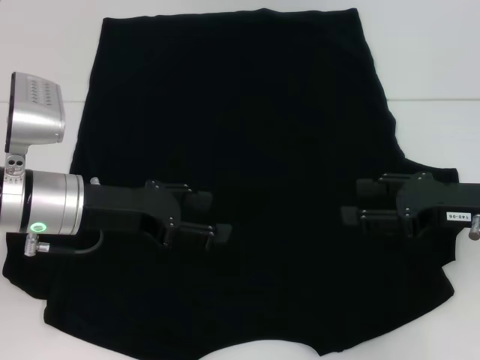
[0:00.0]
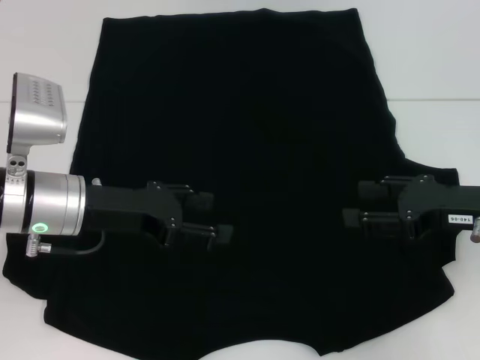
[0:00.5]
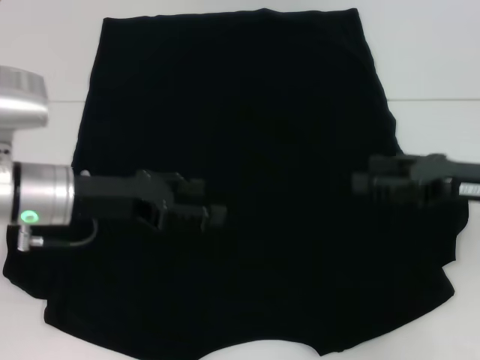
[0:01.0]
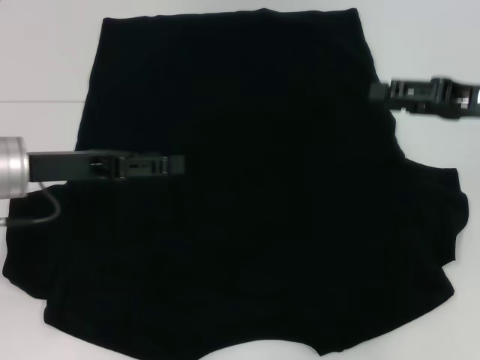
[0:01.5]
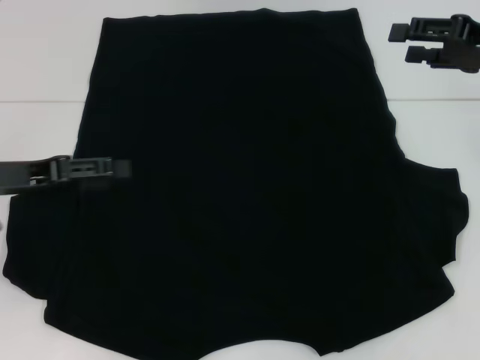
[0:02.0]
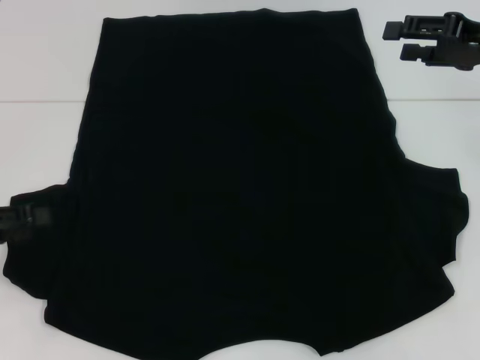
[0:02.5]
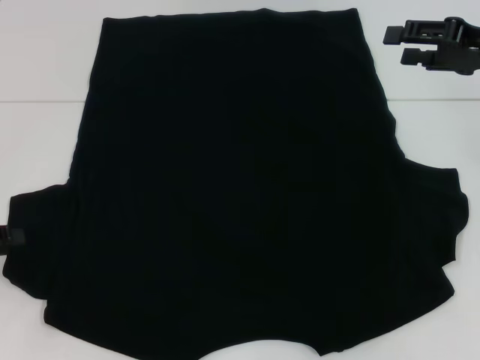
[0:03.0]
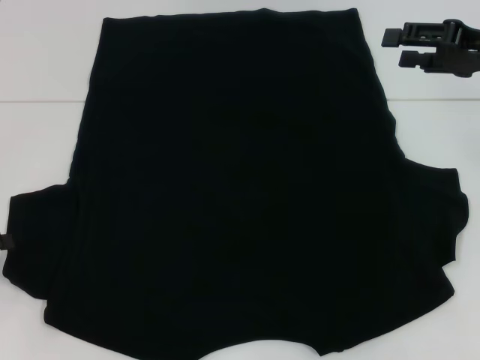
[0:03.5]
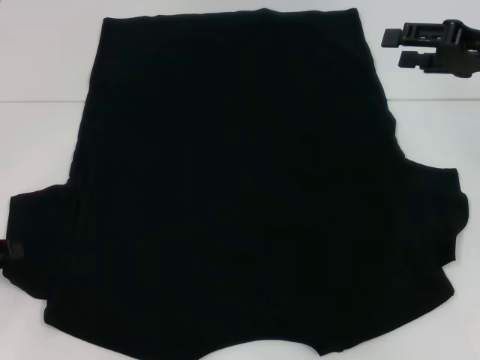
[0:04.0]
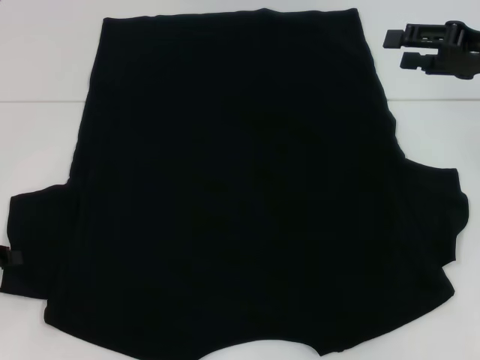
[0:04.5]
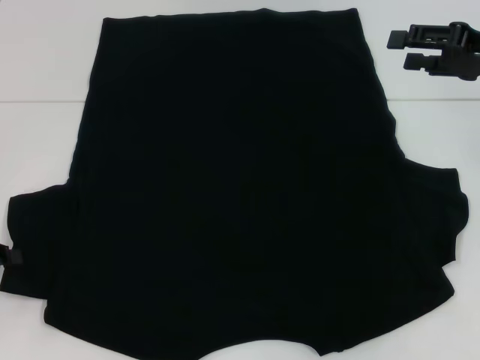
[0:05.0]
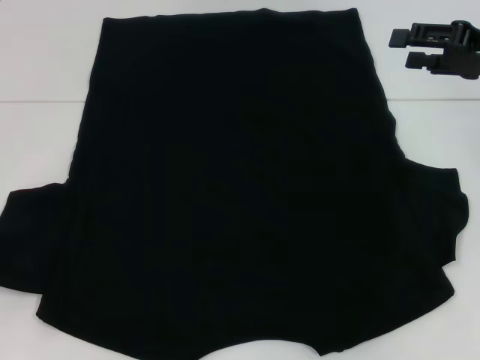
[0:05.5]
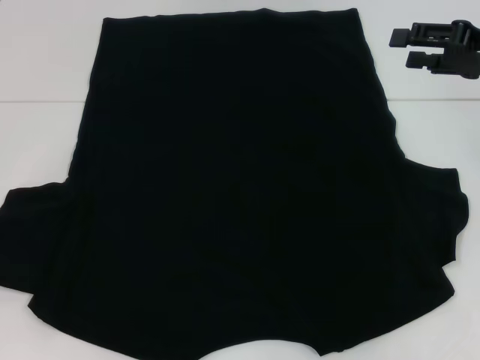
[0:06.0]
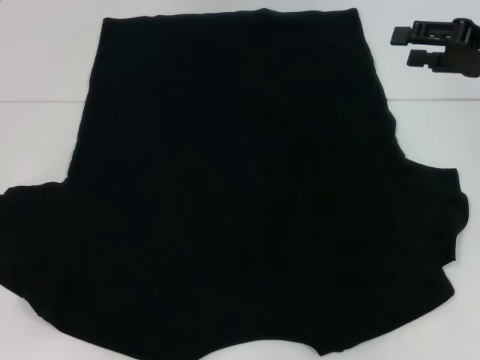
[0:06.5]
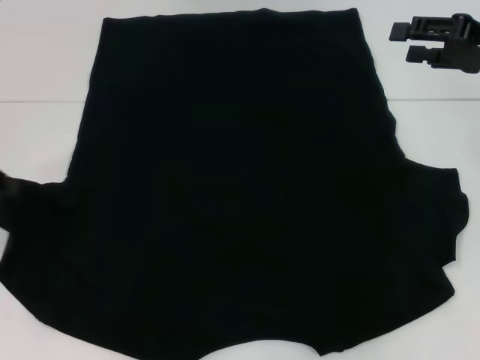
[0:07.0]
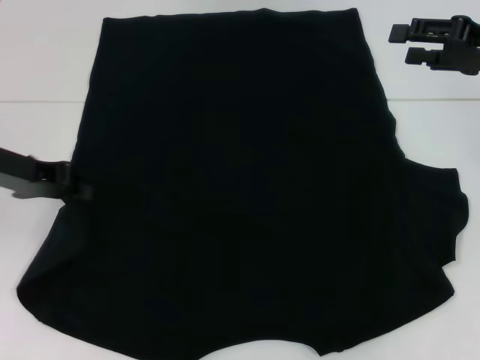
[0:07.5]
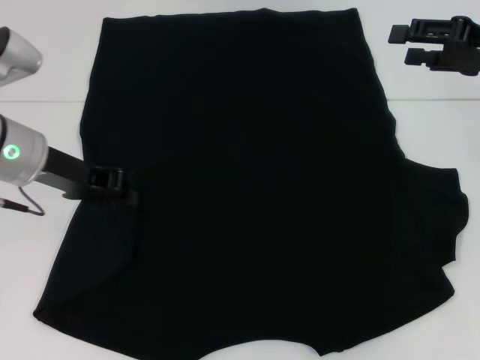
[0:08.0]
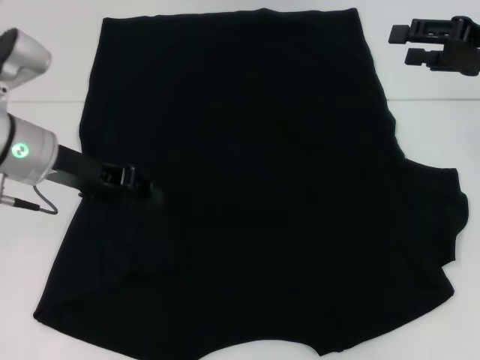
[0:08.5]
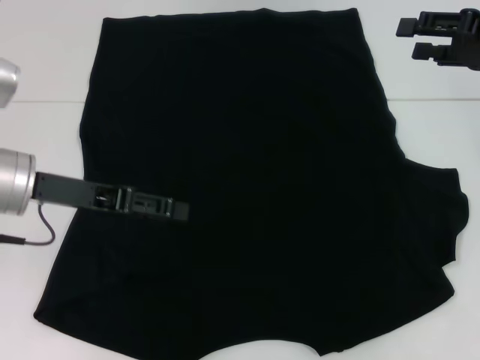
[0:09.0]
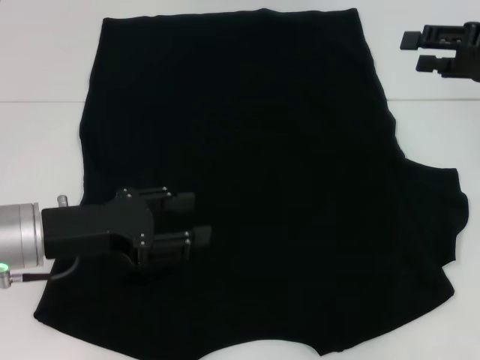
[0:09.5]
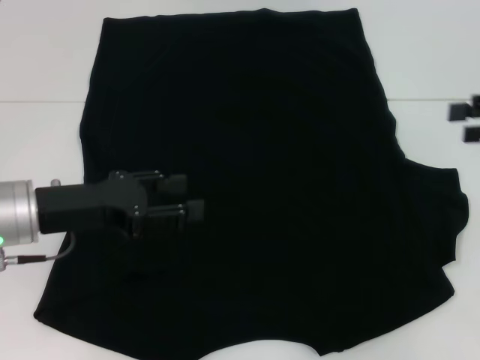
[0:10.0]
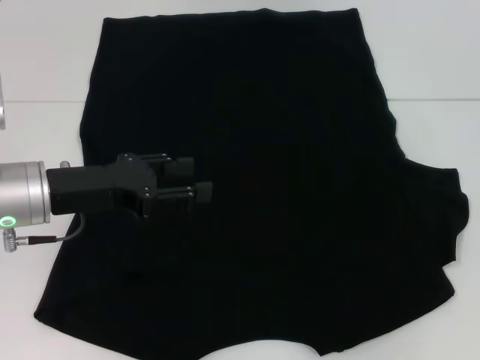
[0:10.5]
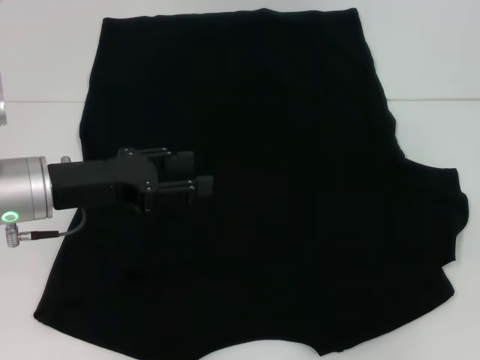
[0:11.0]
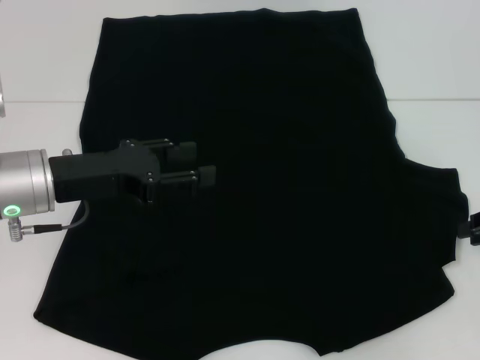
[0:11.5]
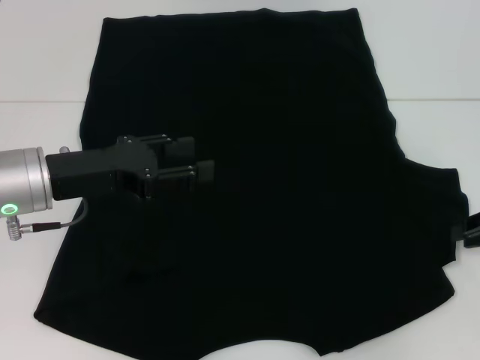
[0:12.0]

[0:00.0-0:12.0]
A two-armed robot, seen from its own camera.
Step, 0:00.0 to 0:08.0: Fold the bottom left sleeve with your left hand.
0:00.0 to 0:02.0: The right gripper travels upward and forward by approximately 15 cm, while the left gripper moves to the left, some 10 cm.
0:02.0 to 0:04.0: The left gripper shifts some 10 cm to the left and downward, and closes up.
0:04.0 to 0:06.0: The left gripper closes.
0:06.0 to 0:08.0: The left gripper travels to the right and forward by some 20 cm.
0:08.0 to 0:10.0: The left gripper goes roughly 5 cm backward, and opens its fingers; the right gripper travels to the right by approximately 5 cm.
0:10.0 to 0:12.0: The right gripper goes roughly 10 cm downward, and closes up.

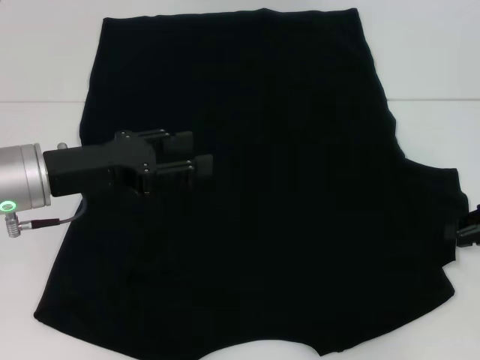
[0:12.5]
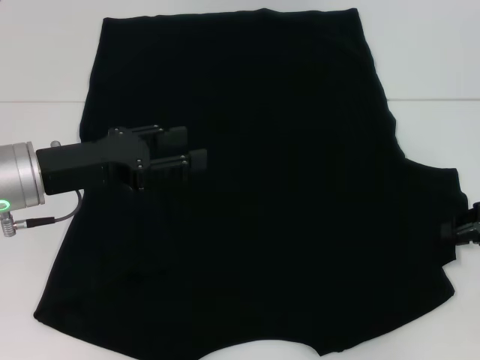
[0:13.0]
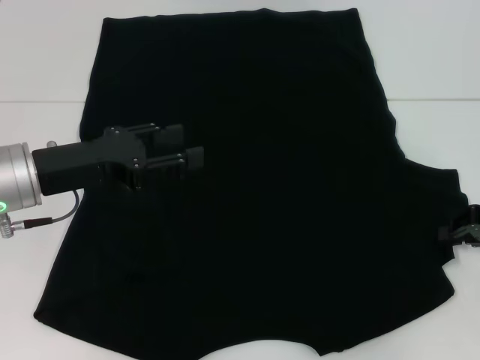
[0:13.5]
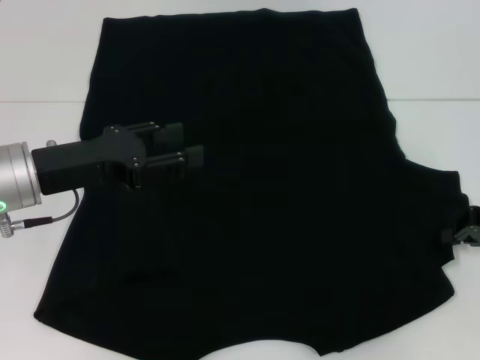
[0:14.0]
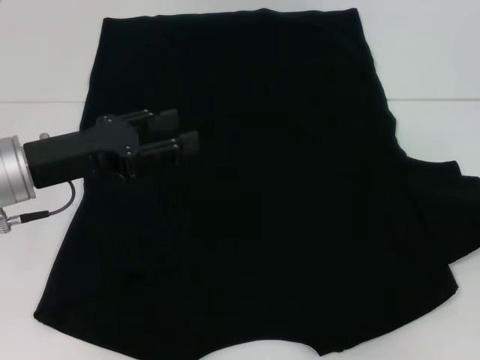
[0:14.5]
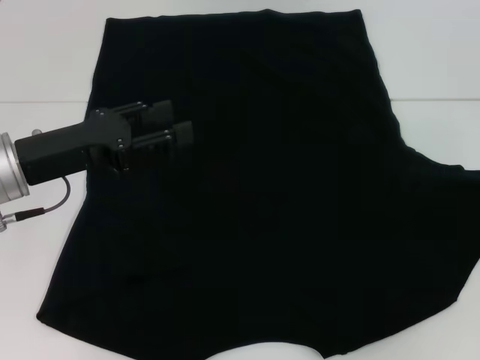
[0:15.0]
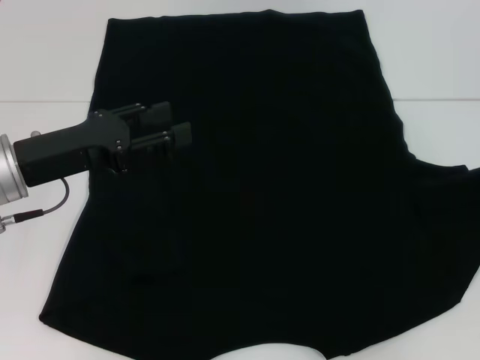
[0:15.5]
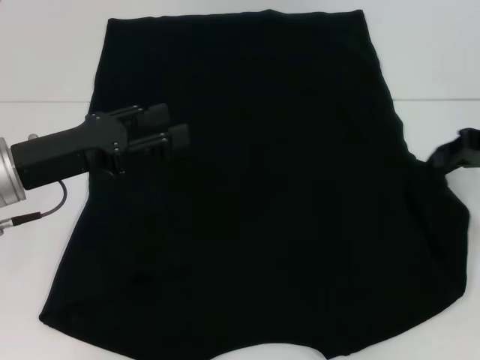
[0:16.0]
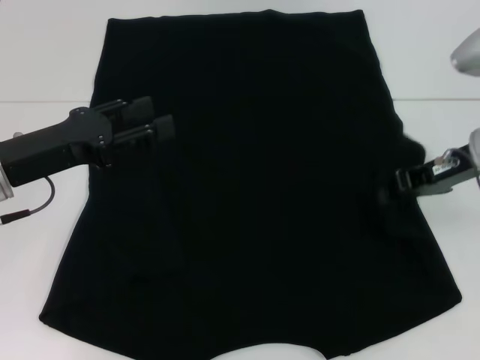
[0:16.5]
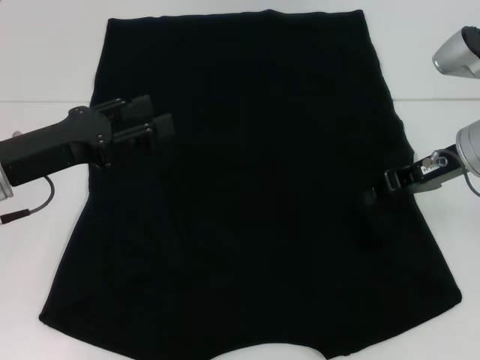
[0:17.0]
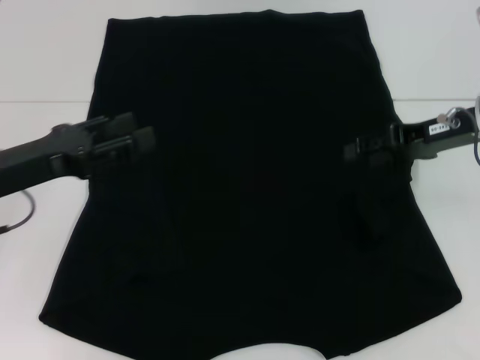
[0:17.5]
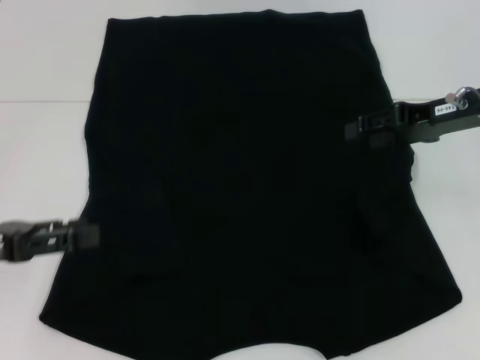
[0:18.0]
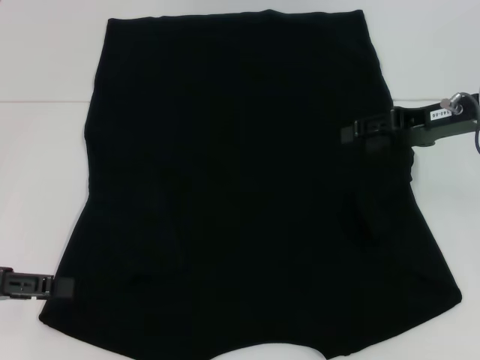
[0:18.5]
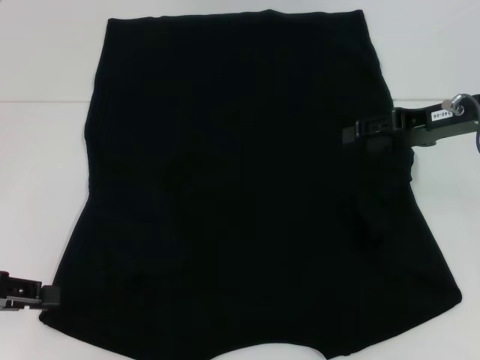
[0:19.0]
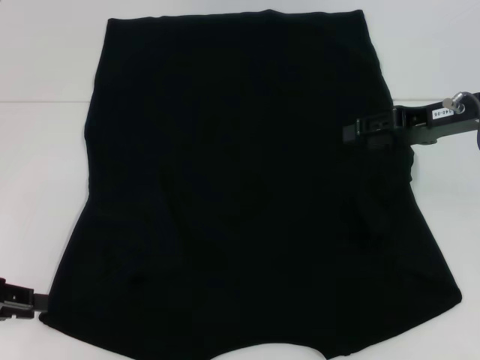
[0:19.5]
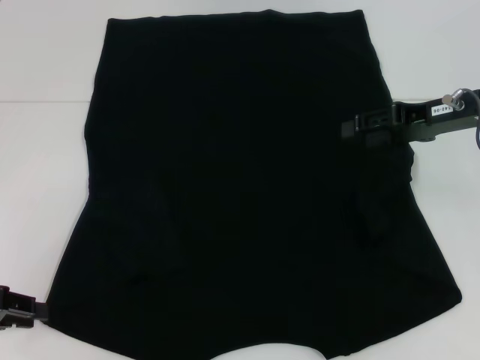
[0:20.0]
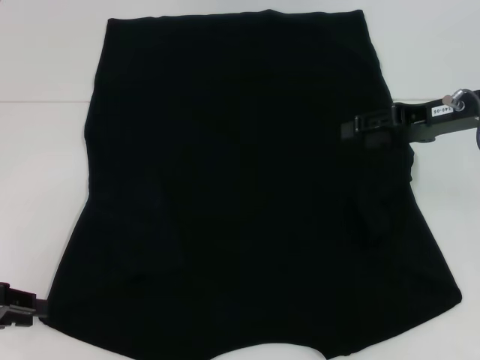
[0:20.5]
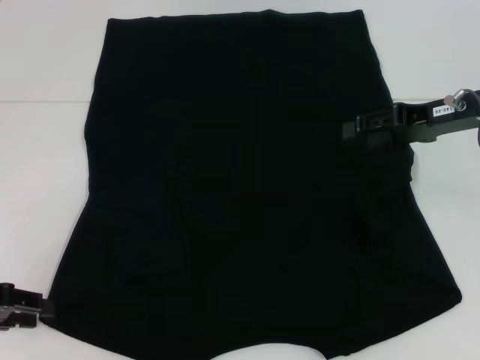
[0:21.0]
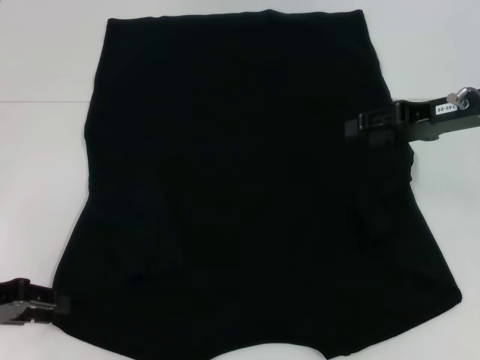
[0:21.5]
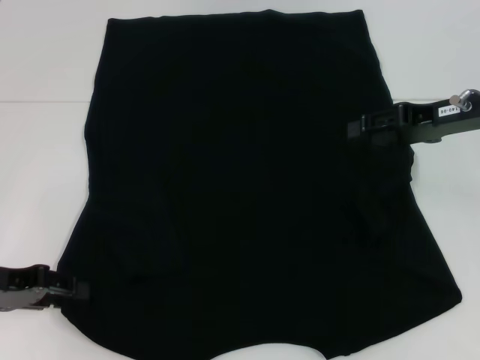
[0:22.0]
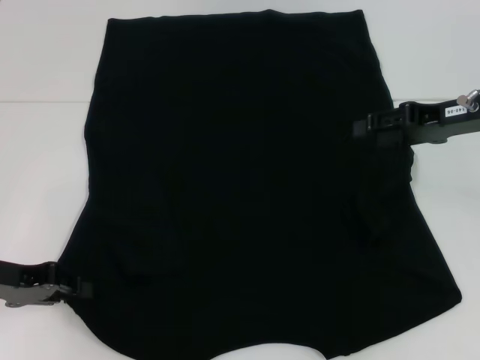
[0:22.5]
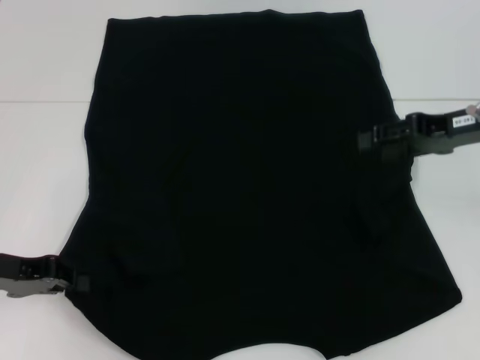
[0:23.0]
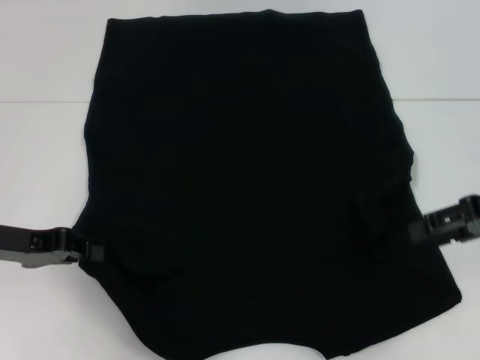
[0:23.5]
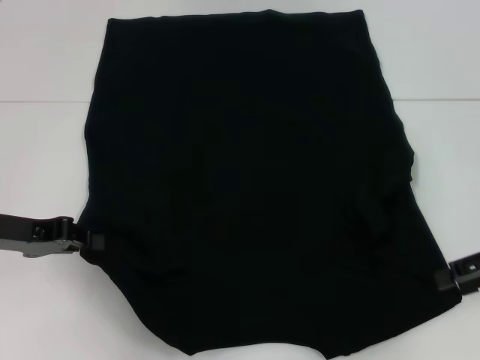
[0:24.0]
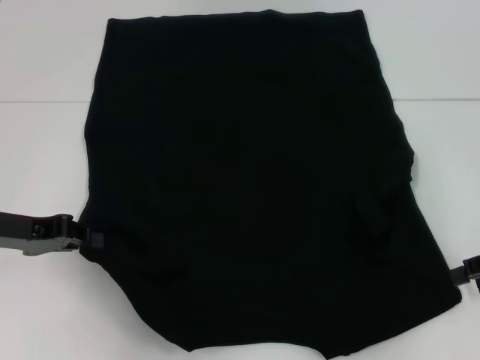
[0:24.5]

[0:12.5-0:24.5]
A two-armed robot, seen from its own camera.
Step, 0:12.5 to 0:16.5: Fold the bottom right sleeve with your right hand.
Step, 0:17.0 to 0:23.0: Grab the bottom left corner with your left hand.
0:12.5 to 0:14.5: The grippers move only a little.
0:14.5 to 0:16.5: The right gripper travels to the left and forward by approximately 15 cm.
0:16.5 to 0:18.5: The left gripper moves to the left and backward, some 10 cm. Meanwhile the right gripper opens its fingers.
0:20.5 to 0:22.5: The left gripper ends up some 5 cm from where it was.
0:22.5 to 0:24.5: The right gripper is displaced backward and to the right by some 10 cm.

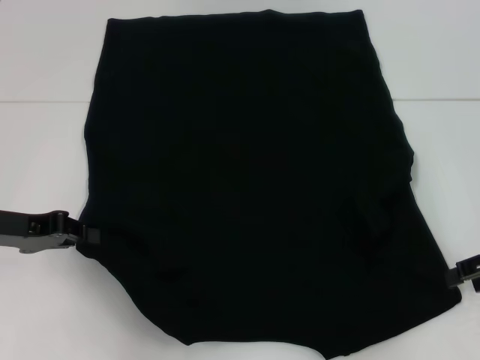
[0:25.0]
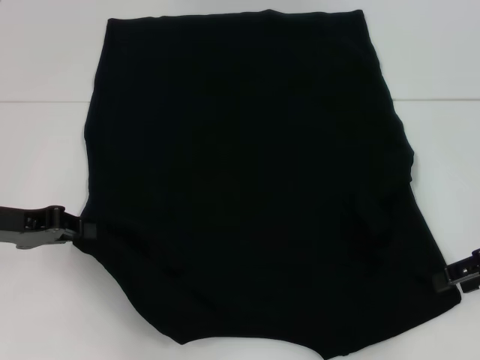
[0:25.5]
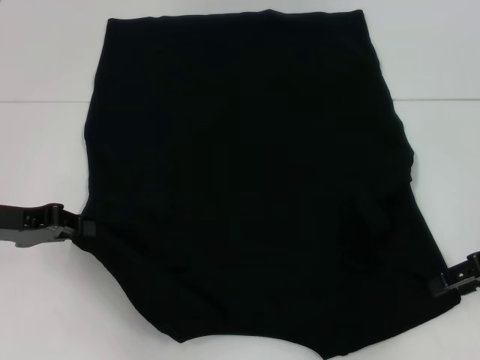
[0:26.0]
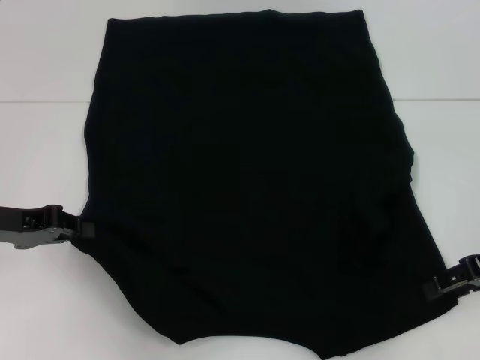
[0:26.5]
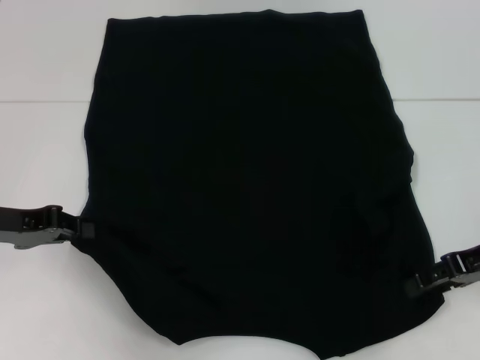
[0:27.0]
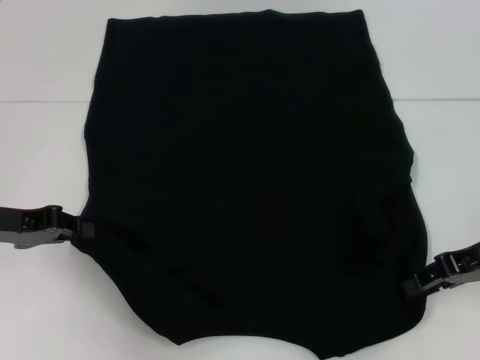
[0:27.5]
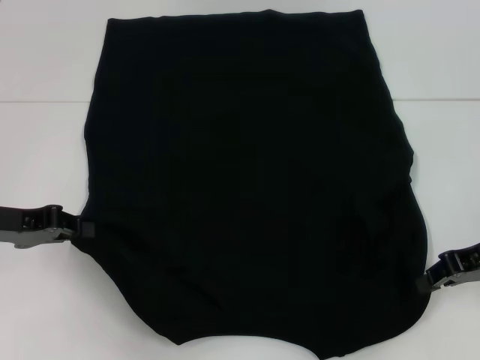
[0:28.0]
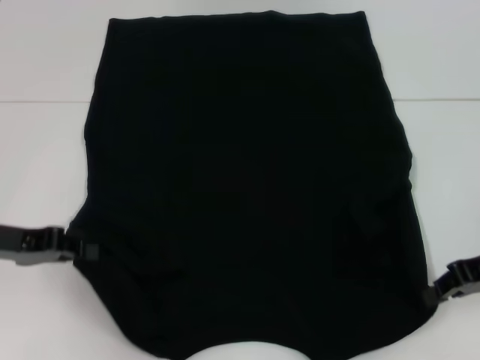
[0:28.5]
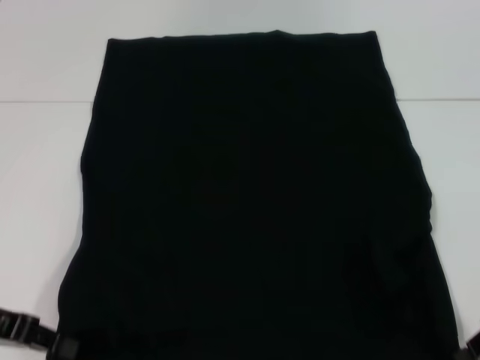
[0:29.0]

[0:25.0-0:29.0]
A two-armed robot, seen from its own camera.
Step, 0:25.0 to 0:28.0: Grab the bottom right corner with your right hand.
0:25.0 to 0:27.0: There are only small adjustments of the grippers.
0:27.0 to 0:29.0: The left gripper is displaced backward by roughly 5 cm. The right gripper closes.
